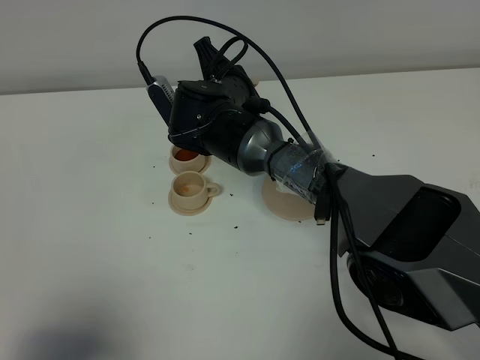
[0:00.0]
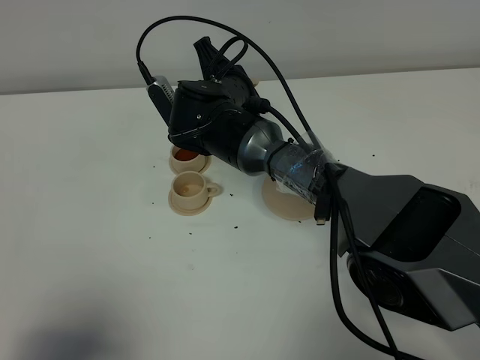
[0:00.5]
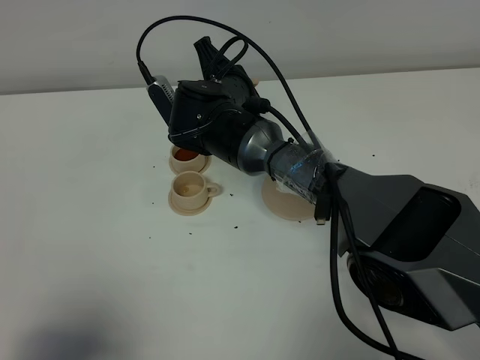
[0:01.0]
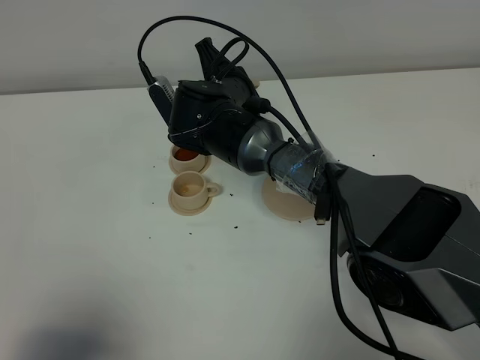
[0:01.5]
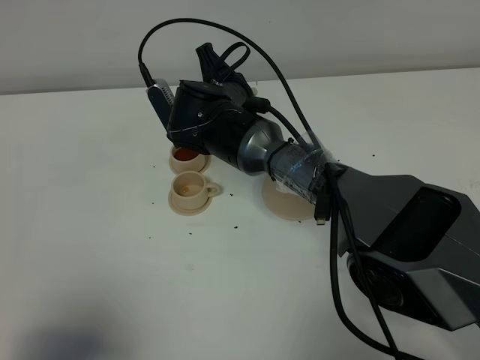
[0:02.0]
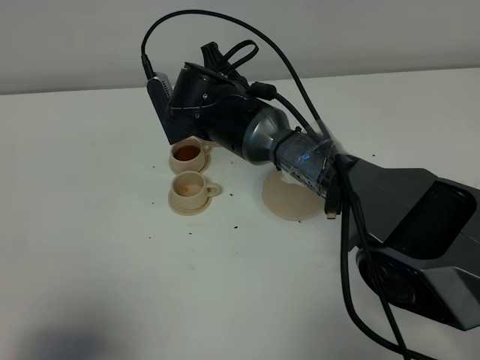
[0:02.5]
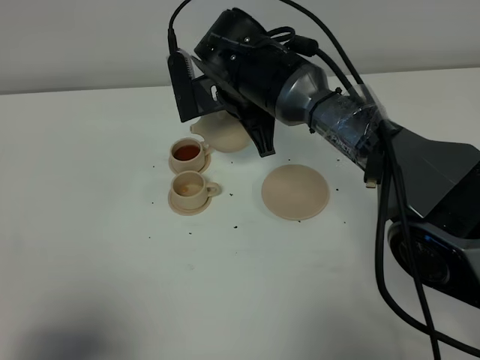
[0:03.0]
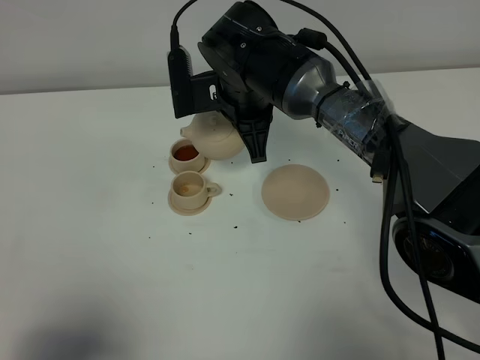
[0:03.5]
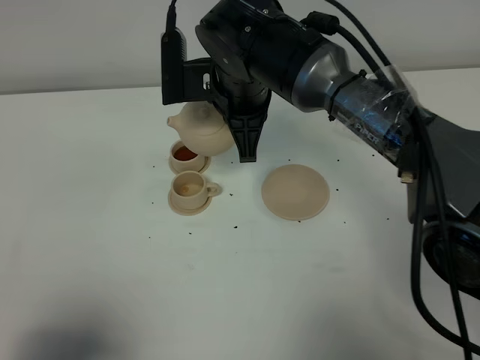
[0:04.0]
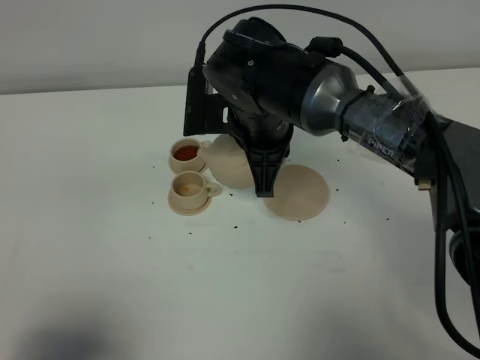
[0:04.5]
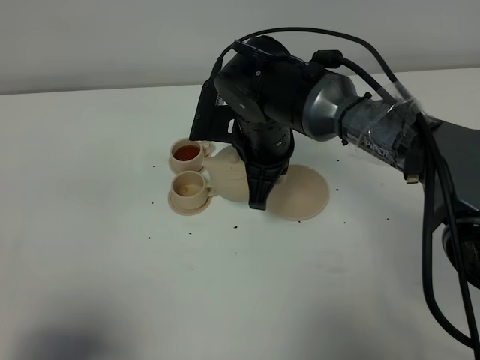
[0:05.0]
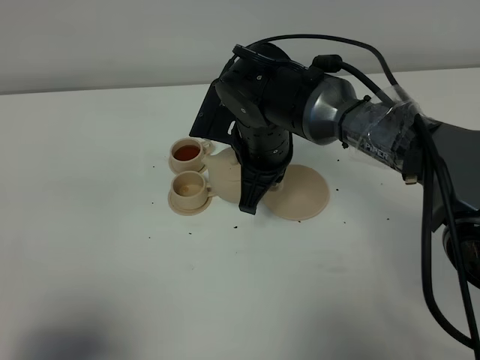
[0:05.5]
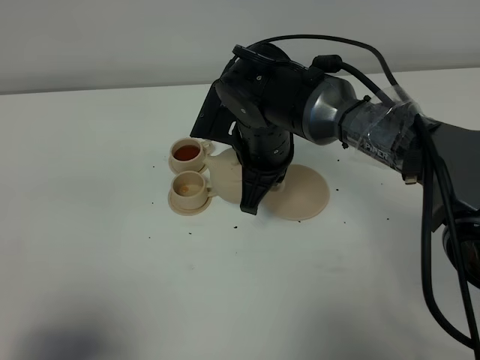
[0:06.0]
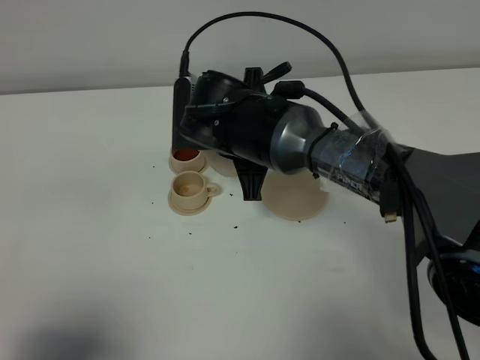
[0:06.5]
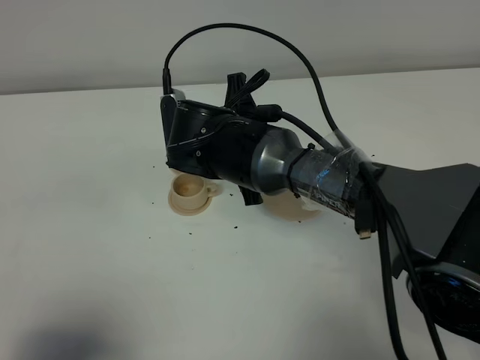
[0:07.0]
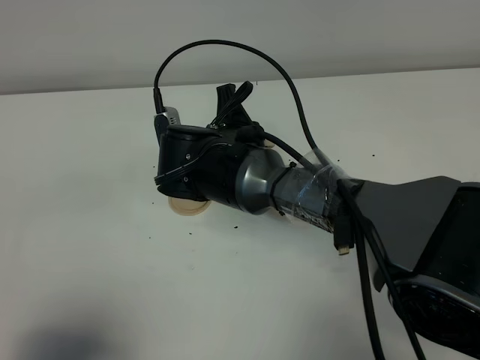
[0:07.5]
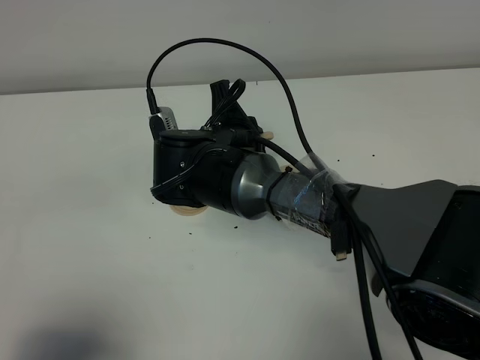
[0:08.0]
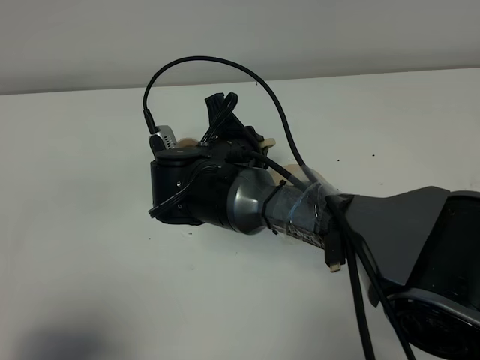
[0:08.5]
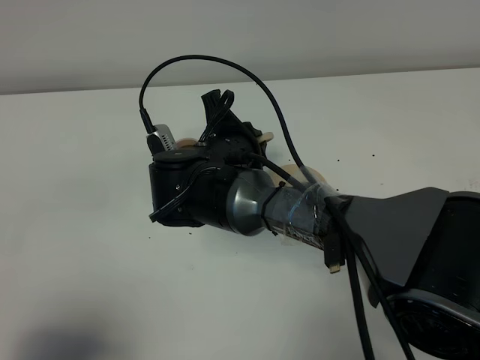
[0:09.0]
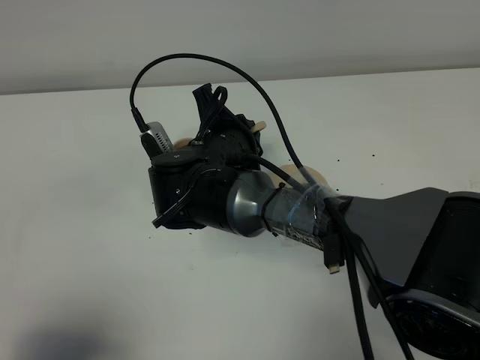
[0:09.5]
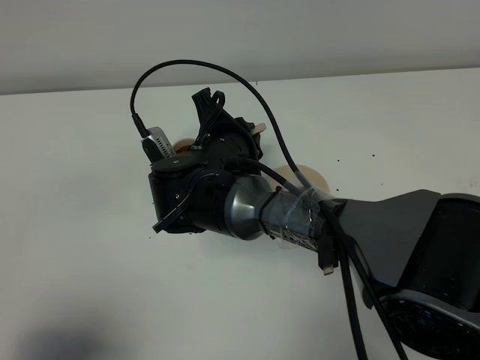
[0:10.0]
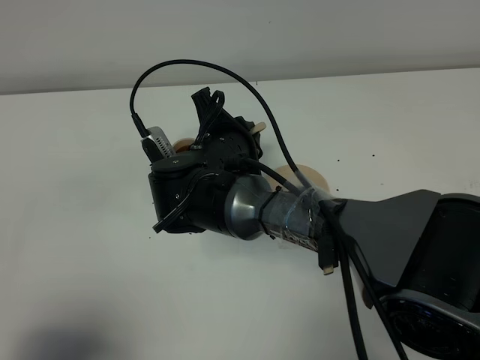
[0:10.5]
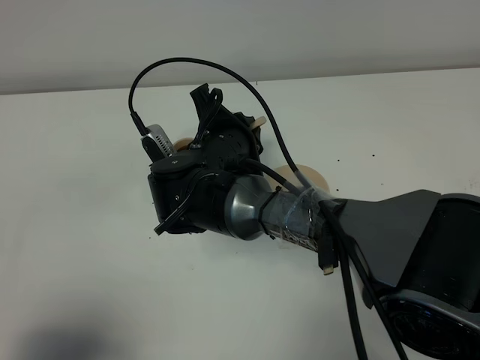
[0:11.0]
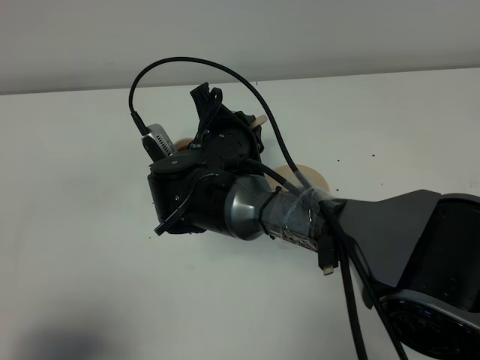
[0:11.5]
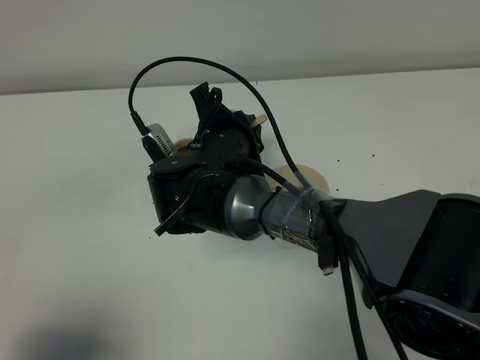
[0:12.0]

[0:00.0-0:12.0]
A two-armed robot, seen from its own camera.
Task of the whole recording: grasp the brown teapot and pour the tea into the two brown teacups one by one, put the brown teapot back in its original place.
Step, 0:00.0 to 0:02.5: Pour tea into the teacup with the right gripper.
0:00.0 to 0:02.0: The two grippers keep their place.
0:02.0 to 0:04.0: The right gripper is displaced upward by approximately 10 cm.
0:04.0 to 0:06.0: The right gripper travels downward by approximately 5 cm.
0:06.0 to 0:08.0: The right gripper ends up approximately 5 cm from where it was.
0:08.0 to 0:10.0: The grippers stay close to where they were, moving slightly.
0:10.0 to 0:12.0: Both grippers stay put.

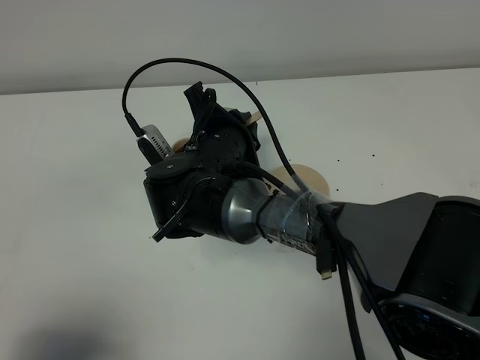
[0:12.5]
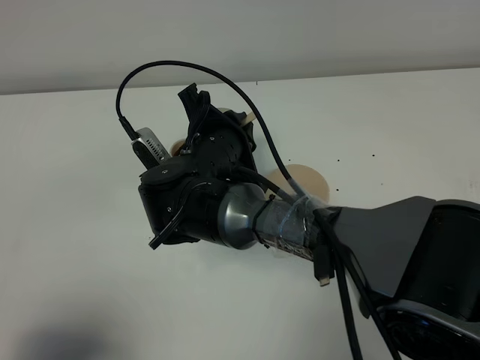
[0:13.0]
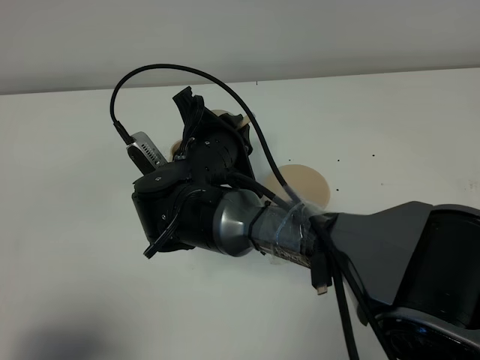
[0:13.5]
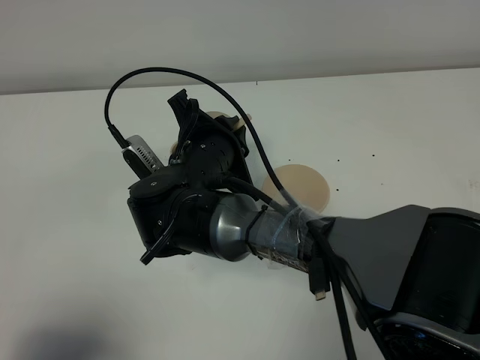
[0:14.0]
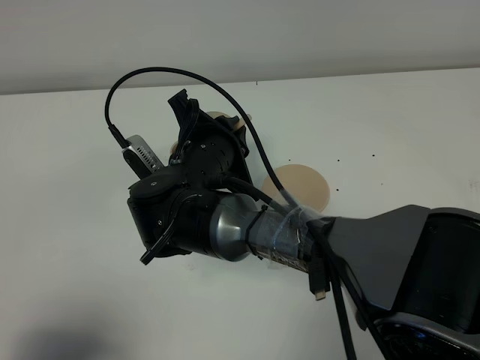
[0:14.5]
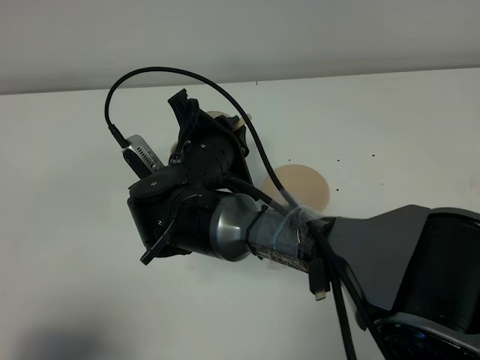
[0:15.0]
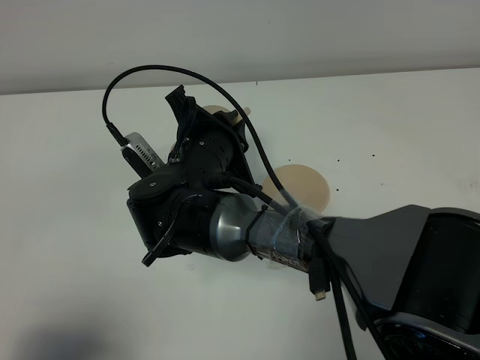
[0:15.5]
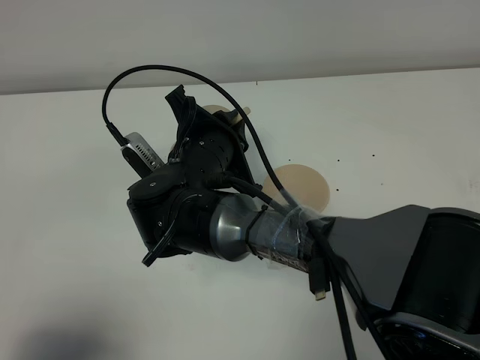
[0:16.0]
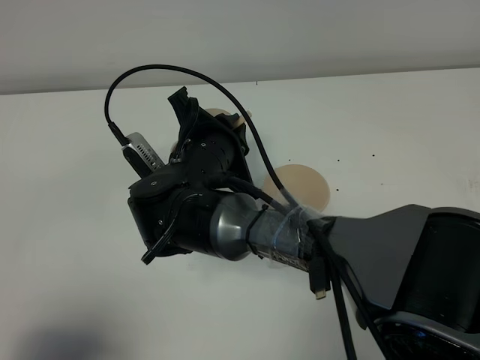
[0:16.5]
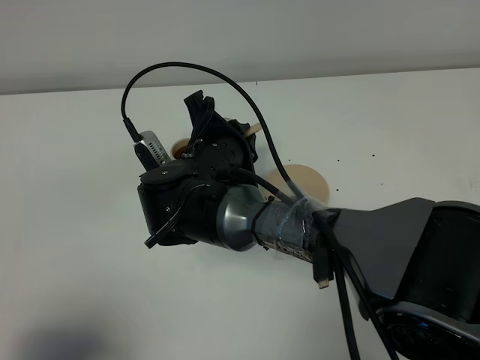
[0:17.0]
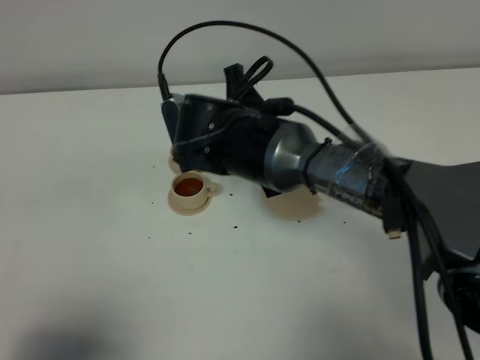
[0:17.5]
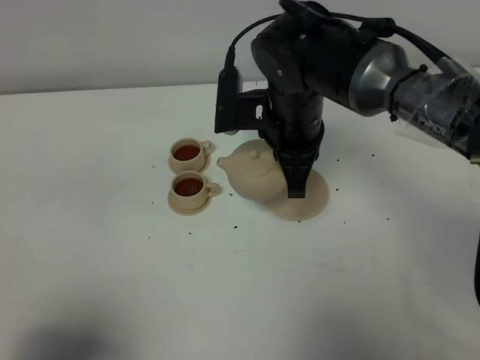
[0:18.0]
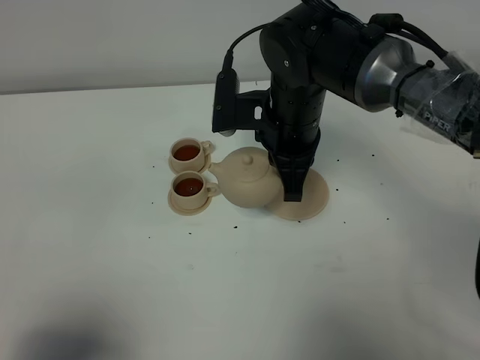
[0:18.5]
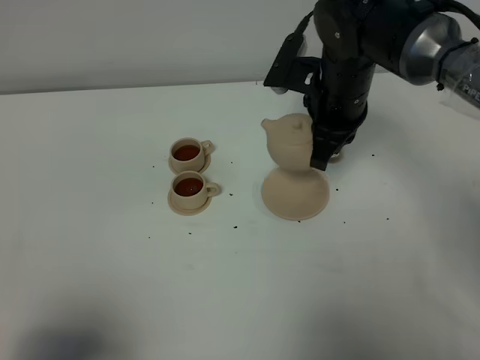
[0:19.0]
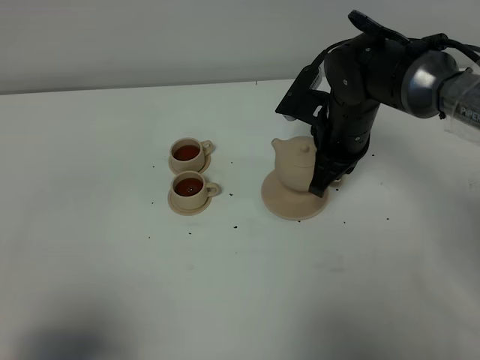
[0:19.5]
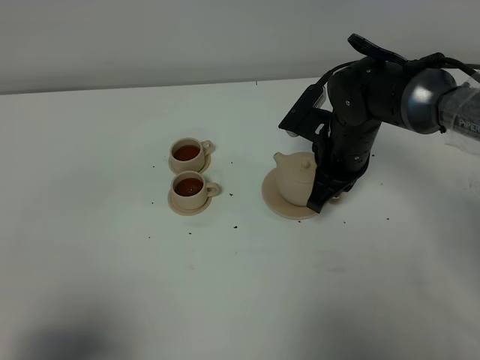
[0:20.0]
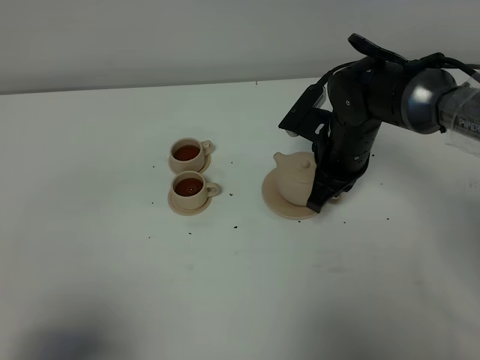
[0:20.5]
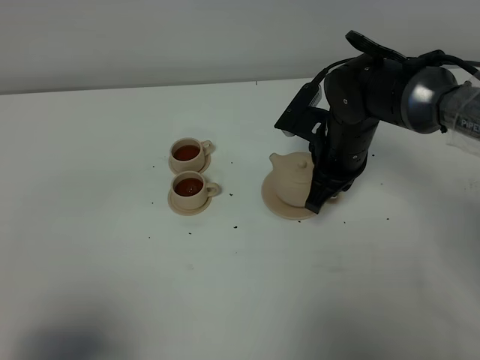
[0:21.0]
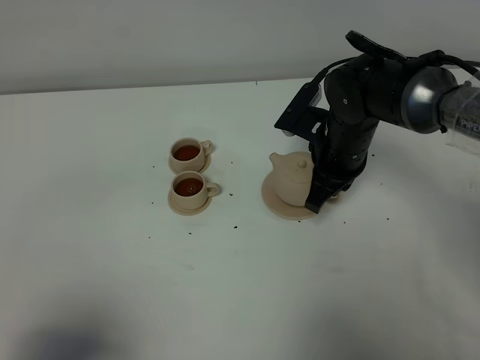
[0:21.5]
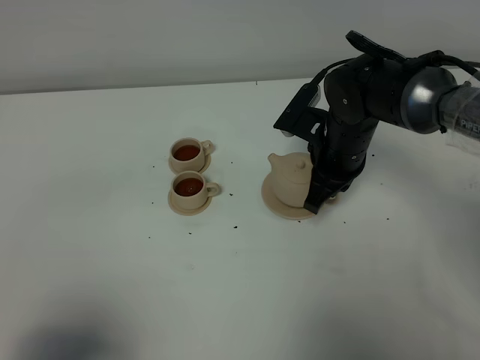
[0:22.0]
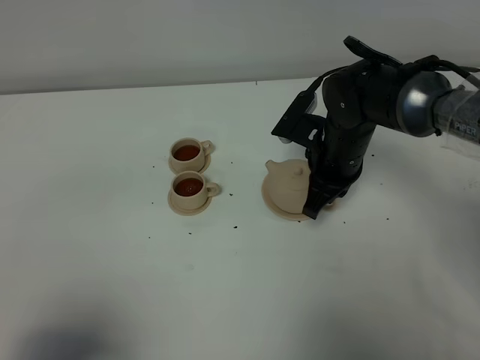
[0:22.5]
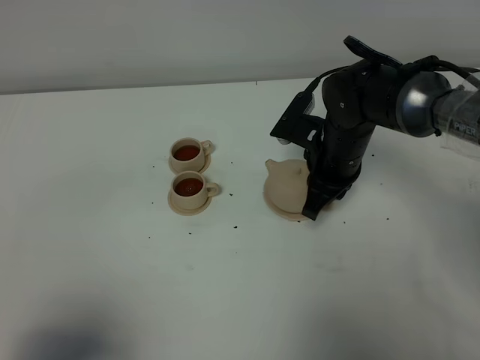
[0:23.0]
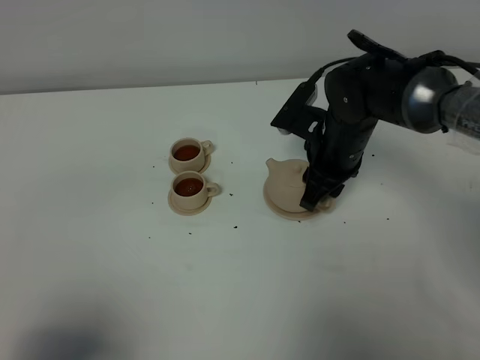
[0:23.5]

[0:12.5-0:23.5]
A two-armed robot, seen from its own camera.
Task of the whole recording: grasp the brown teapot and pour the tea into the two brown teacups one by one, put the brown teapot back in its original place.
Step, 0:12.5 to 0:17.5: Pour tea into the teacup with the right gripper.
0:12.5 to 0:14.5: The grippers move only a little.
0:14.5 to 0:16.0: Both grippers stay about where they are.
0:16.0 to 0:18.0: The right gripper moves to the right, forward and upward, approximately 15 cm.
0:18.0 to 0:20.0: The right gripper is displaced downward and to the right by approximately 10 cm.
0:20.0 to 0:21.5: Both grippers stay put.
0:21.5 to 0:23.5: The right gripper opens up.

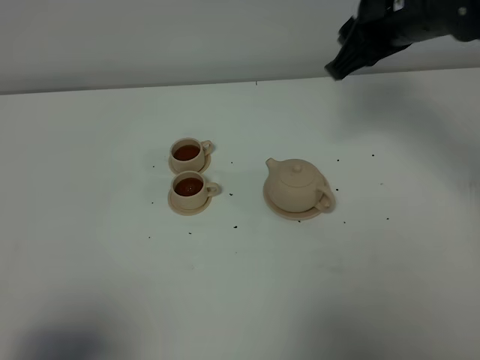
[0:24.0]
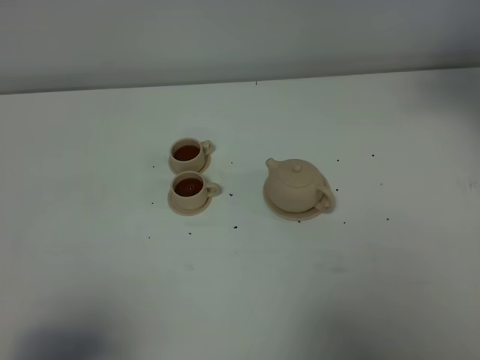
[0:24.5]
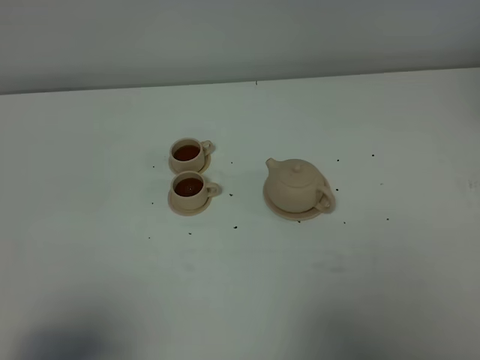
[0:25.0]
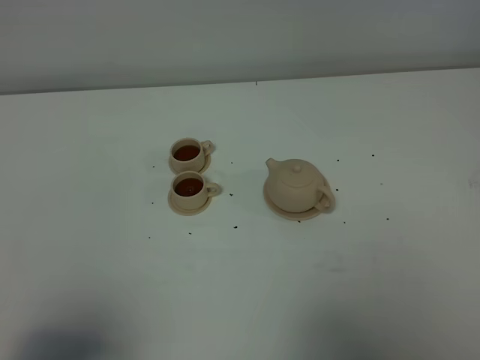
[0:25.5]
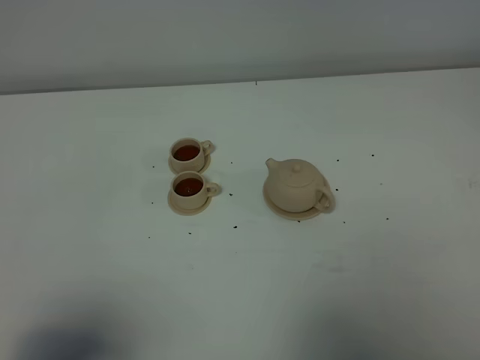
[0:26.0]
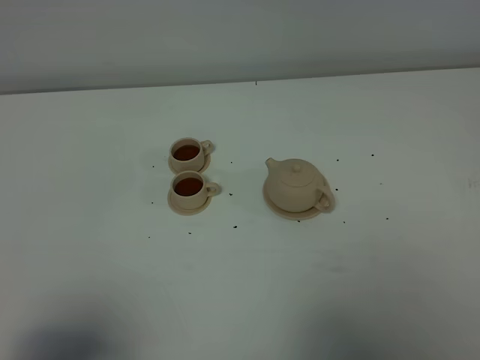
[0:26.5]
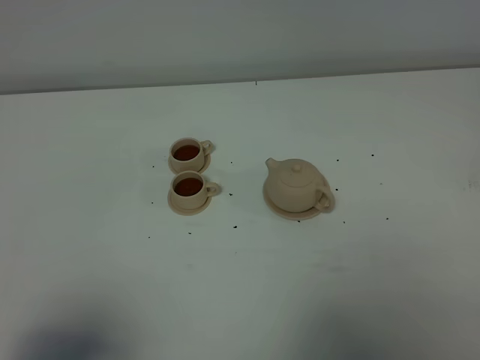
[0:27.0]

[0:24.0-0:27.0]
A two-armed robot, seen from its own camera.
Task of the whole recording: grasp the brown teapot and pour the tea into the two brown teacups one by one, put the brown teapot back in its original place.
0:24.0 to 0:25.5: The right gripper travels backward and to the right by roughly 30 cm.
